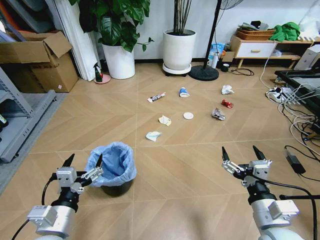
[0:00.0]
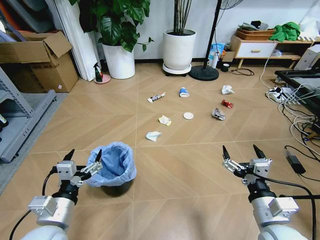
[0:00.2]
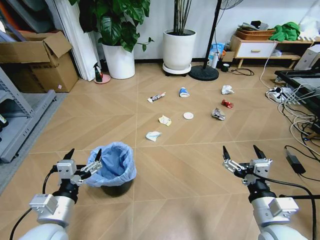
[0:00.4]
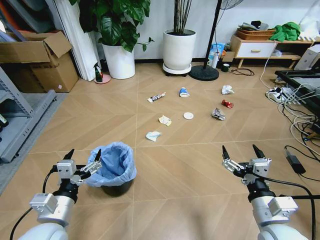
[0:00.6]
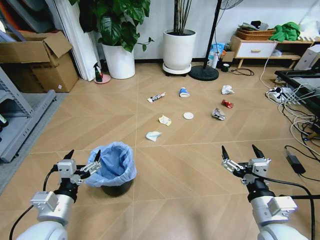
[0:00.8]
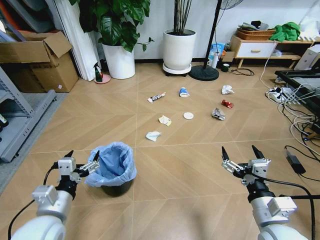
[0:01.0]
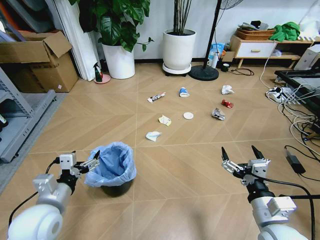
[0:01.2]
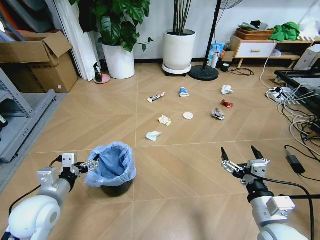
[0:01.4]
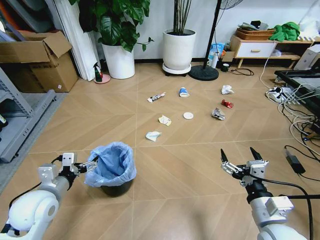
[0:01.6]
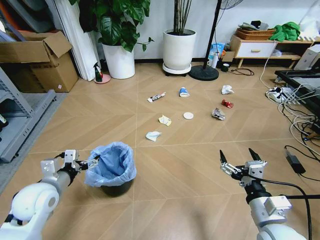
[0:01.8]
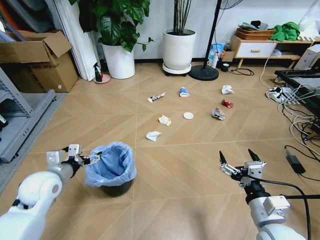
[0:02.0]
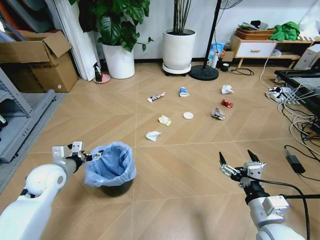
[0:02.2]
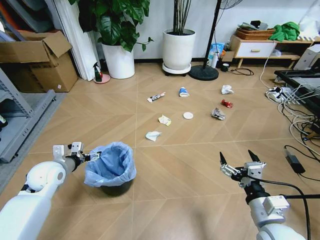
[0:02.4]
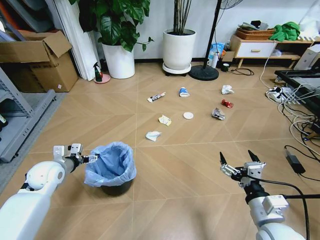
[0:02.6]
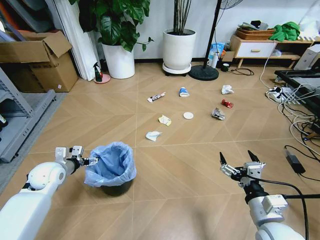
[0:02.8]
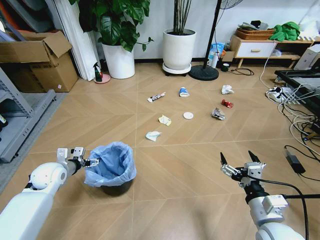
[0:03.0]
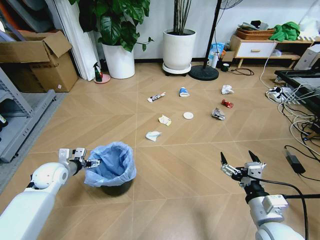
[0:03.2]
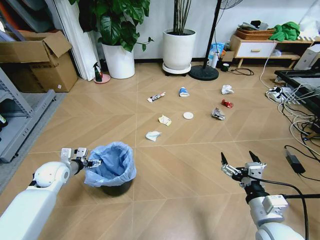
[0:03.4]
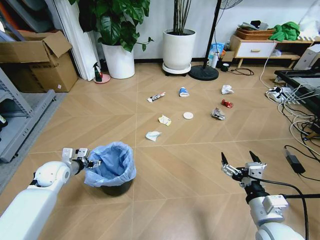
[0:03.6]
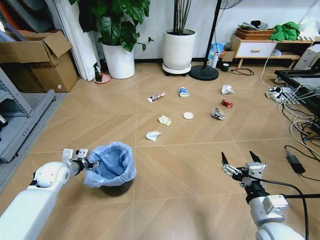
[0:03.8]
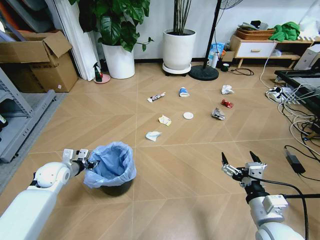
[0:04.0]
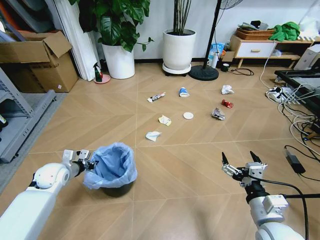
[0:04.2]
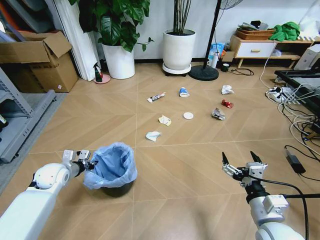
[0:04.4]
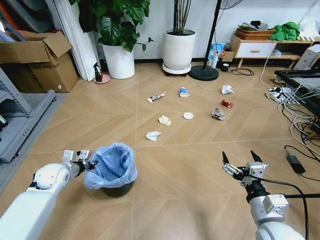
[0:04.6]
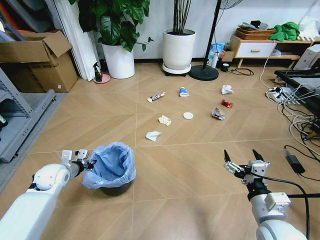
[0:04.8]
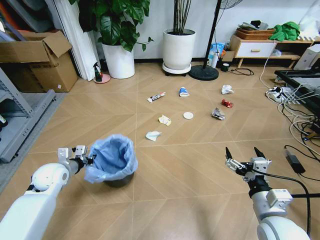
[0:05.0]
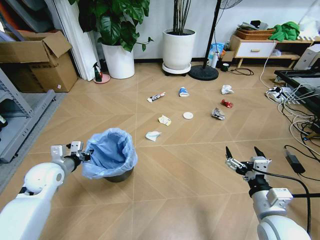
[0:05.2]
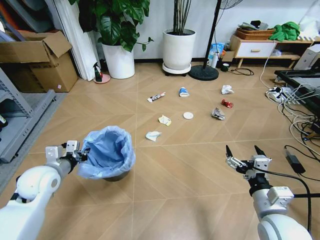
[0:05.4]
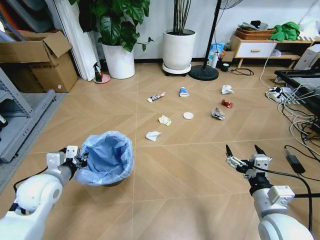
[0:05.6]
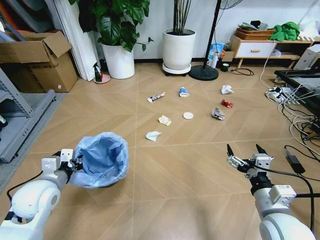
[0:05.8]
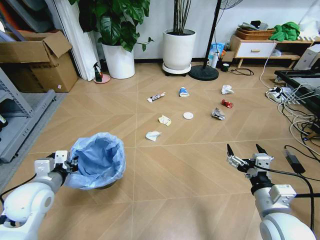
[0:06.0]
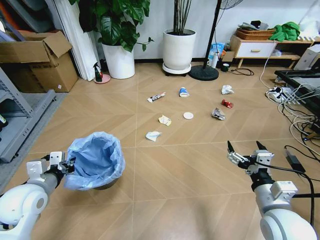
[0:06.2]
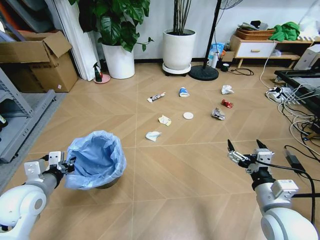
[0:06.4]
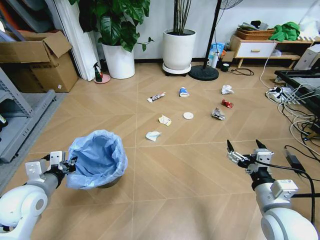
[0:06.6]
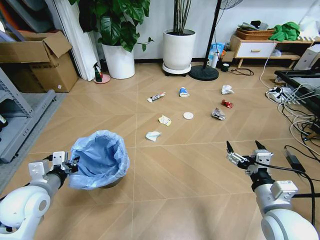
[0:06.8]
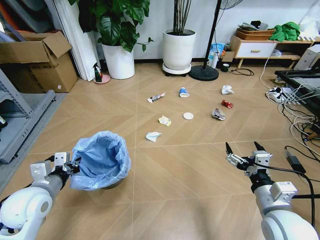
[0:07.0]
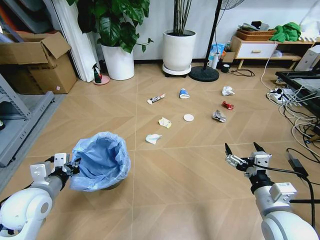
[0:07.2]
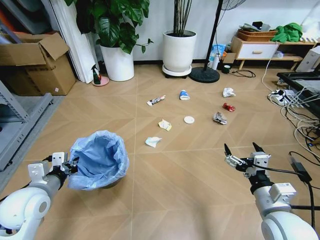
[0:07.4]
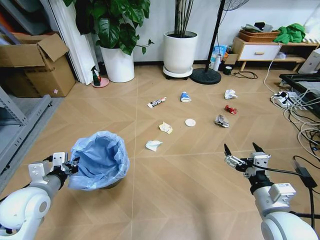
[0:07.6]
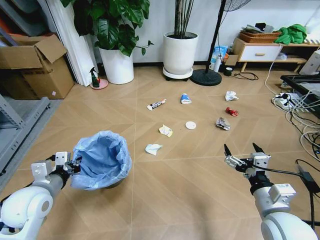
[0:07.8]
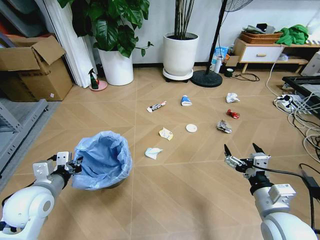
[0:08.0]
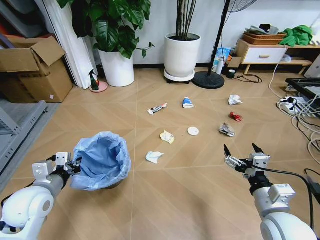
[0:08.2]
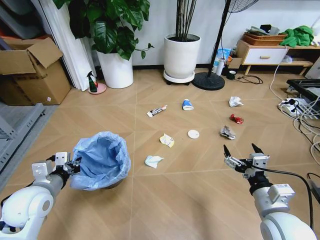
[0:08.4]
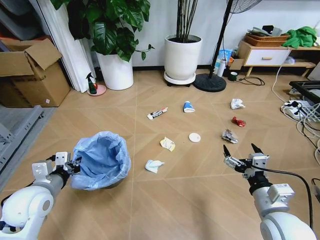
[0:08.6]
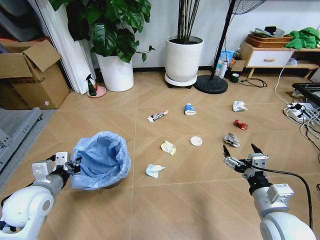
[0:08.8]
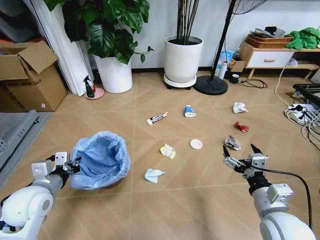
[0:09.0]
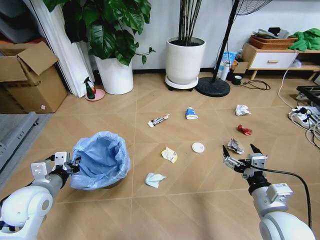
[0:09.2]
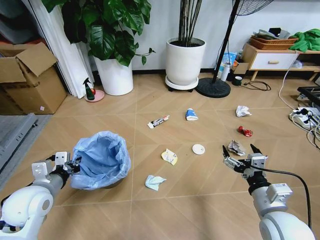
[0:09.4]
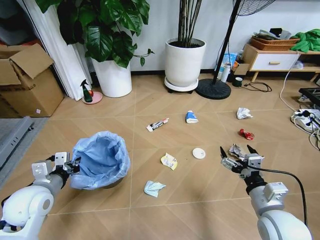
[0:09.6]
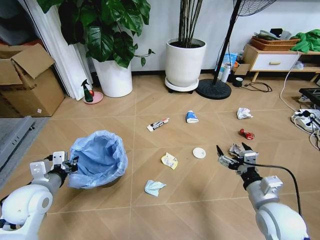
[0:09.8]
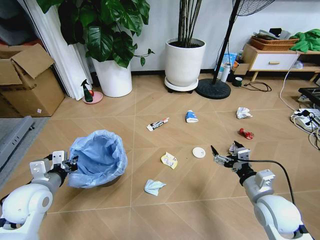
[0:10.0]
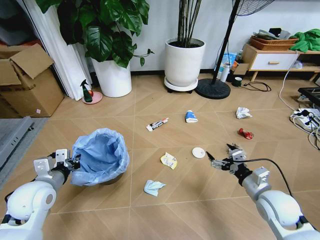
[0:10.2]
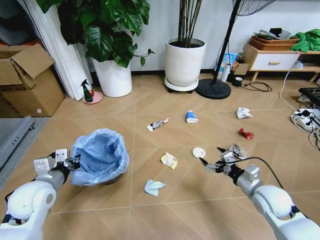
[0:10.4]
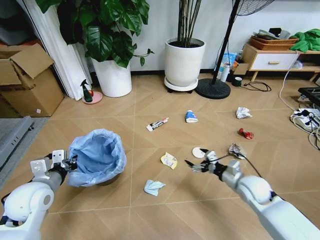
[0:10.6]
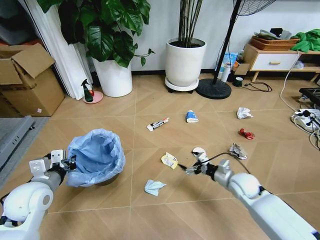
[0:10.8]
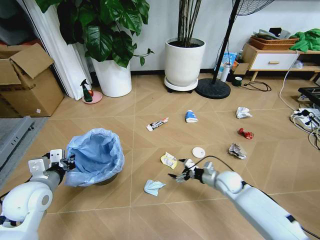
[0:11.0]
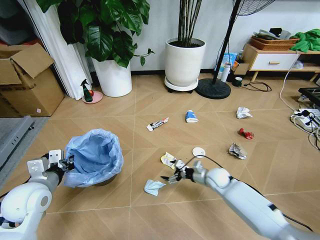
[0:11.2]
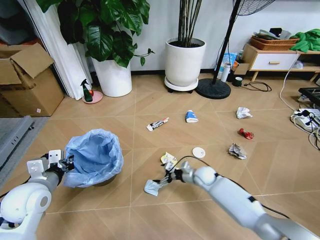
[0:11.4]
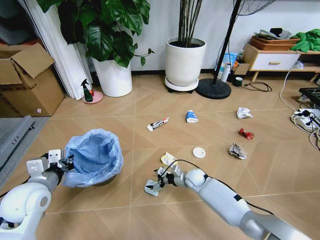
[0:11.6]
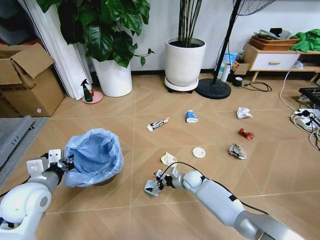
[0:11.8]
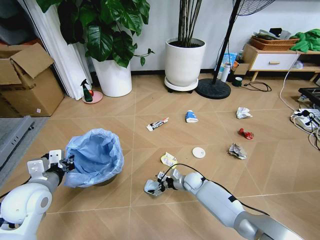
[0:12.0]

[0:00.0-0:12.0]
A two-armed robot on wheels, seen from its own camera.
Task of the whole recording: Pick up the trash bin and place the garbage on the floor into it.
0:01.6 to 0:03.0: The left gripper goes about 15 cm forward, downward and to the left.
0:03.0 to 0:04.4: The left gripper closes its fingers.
0:04.4 to 0:06.0: The left gripper travels backward and upward by some 15 cm.
0:09.0 to 0:10.4: The right gripper shifts roughly 15 cm forward, downward and to the right.
0:10.4 to 0:12.0: The right gripper shifts approximately 30 cm downward, to the left and forward.

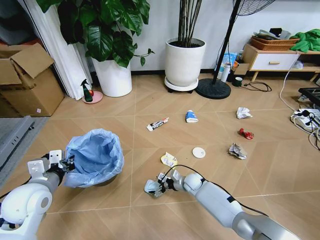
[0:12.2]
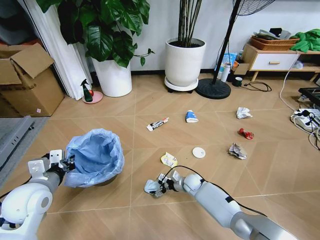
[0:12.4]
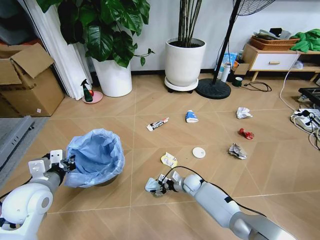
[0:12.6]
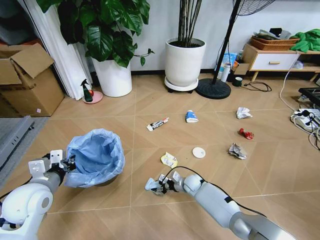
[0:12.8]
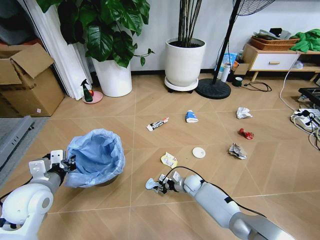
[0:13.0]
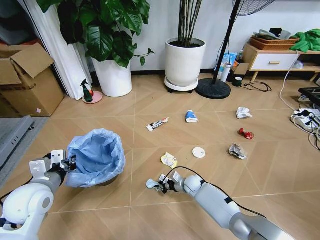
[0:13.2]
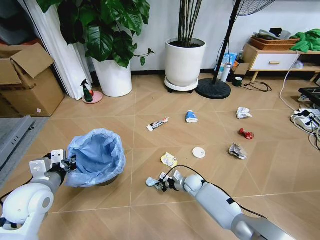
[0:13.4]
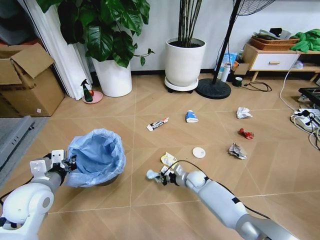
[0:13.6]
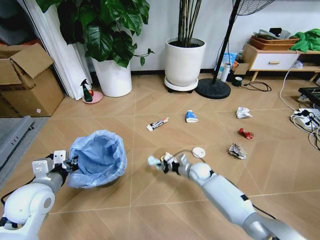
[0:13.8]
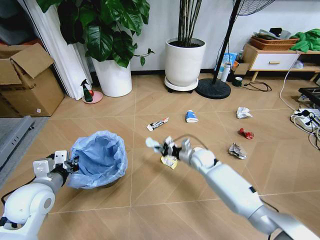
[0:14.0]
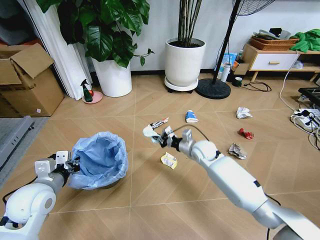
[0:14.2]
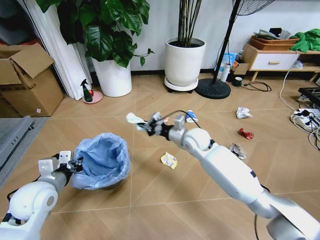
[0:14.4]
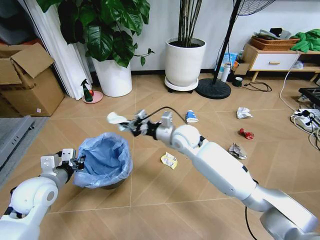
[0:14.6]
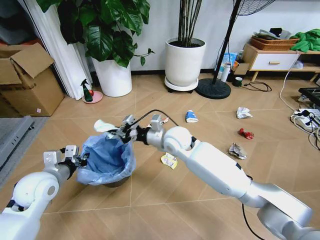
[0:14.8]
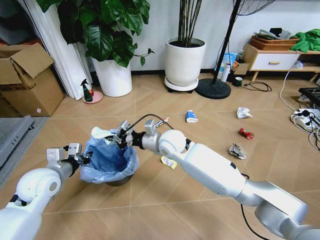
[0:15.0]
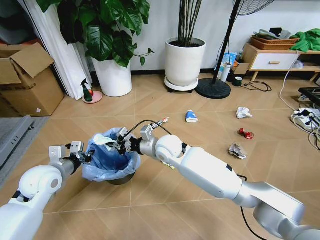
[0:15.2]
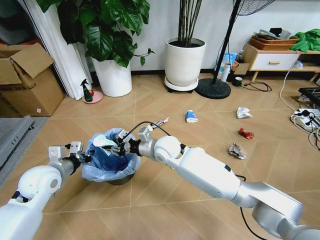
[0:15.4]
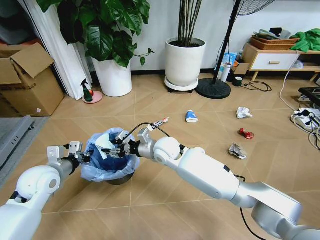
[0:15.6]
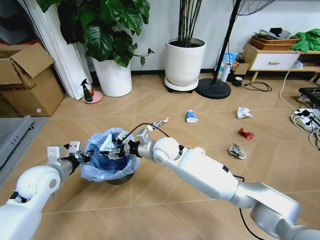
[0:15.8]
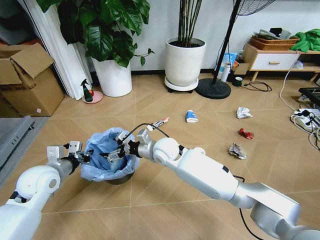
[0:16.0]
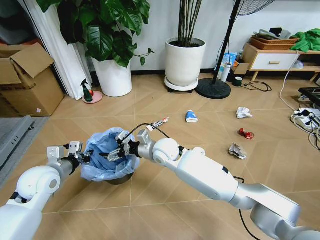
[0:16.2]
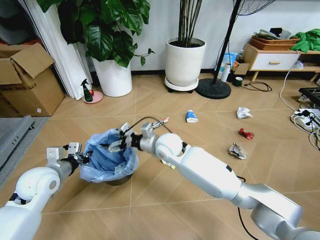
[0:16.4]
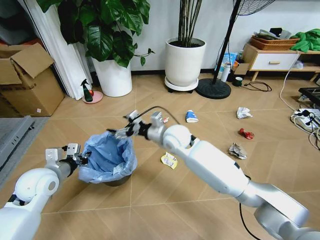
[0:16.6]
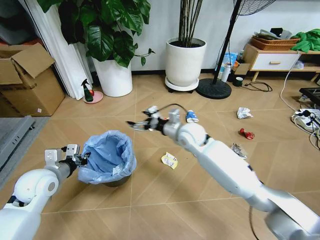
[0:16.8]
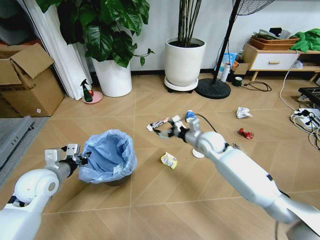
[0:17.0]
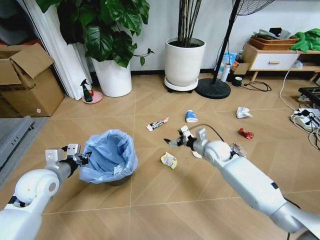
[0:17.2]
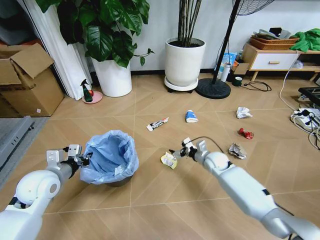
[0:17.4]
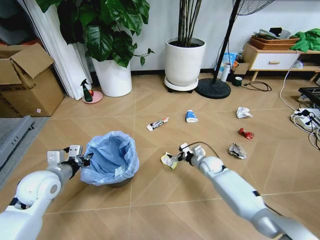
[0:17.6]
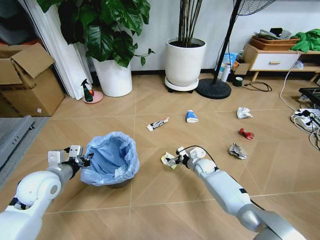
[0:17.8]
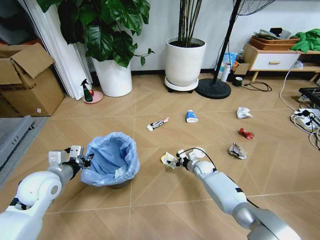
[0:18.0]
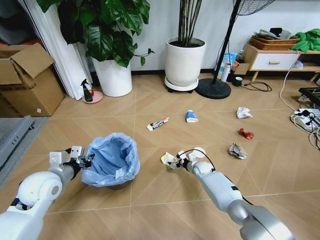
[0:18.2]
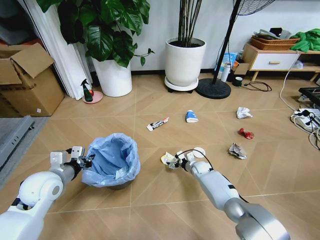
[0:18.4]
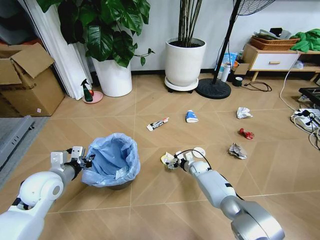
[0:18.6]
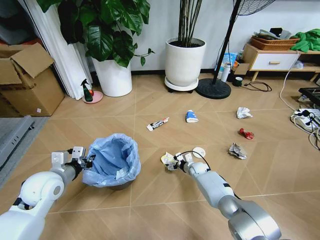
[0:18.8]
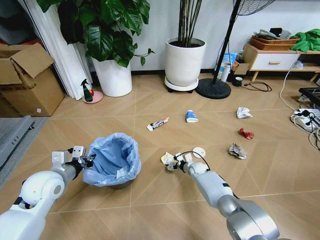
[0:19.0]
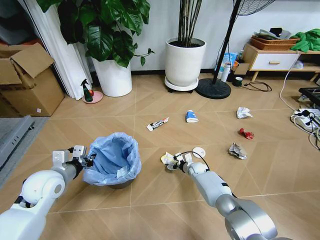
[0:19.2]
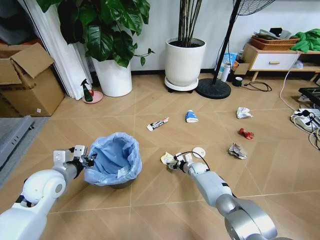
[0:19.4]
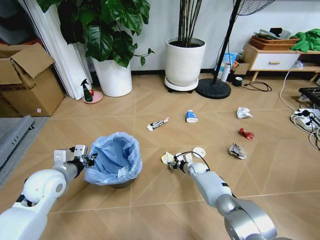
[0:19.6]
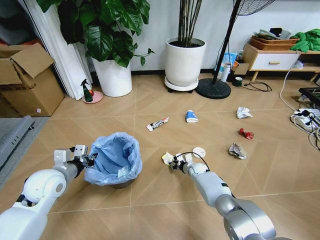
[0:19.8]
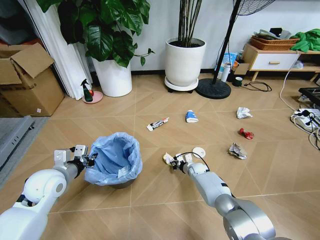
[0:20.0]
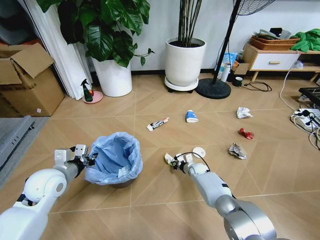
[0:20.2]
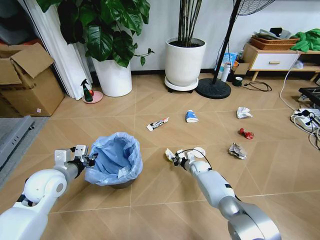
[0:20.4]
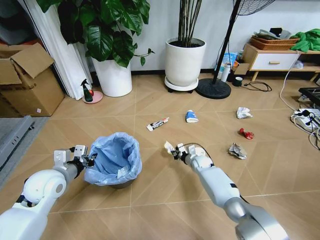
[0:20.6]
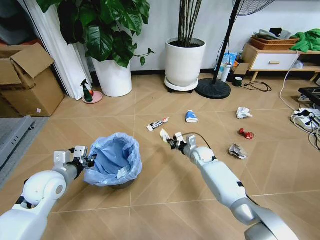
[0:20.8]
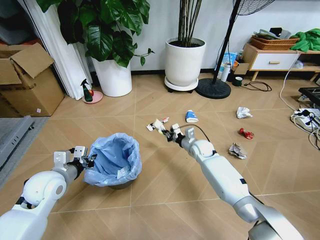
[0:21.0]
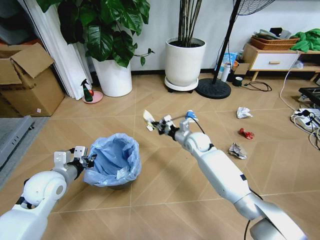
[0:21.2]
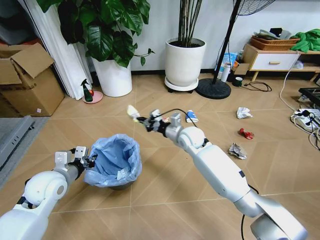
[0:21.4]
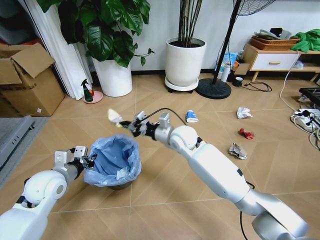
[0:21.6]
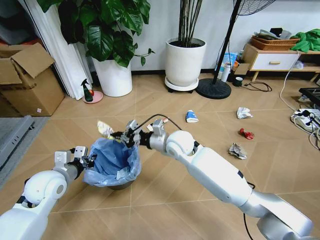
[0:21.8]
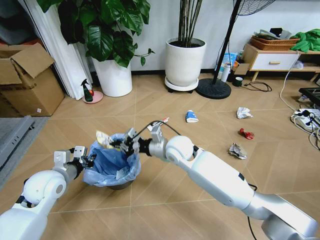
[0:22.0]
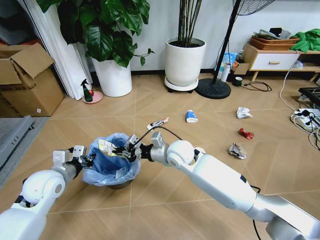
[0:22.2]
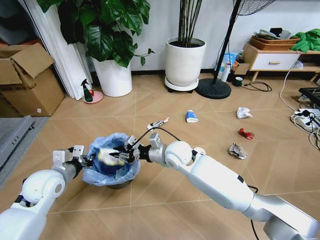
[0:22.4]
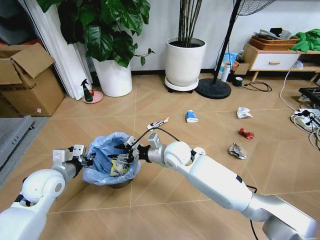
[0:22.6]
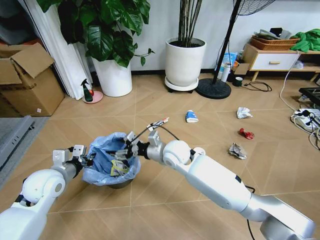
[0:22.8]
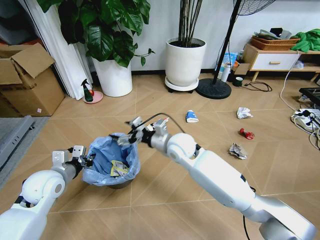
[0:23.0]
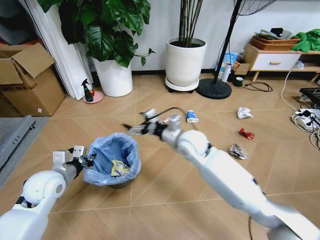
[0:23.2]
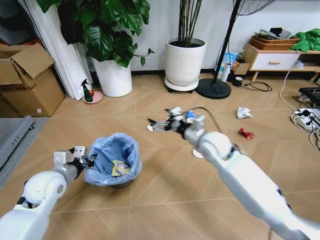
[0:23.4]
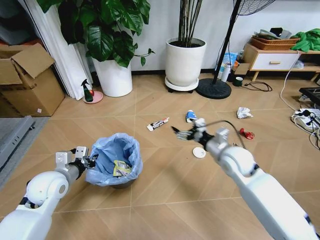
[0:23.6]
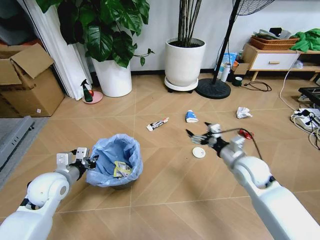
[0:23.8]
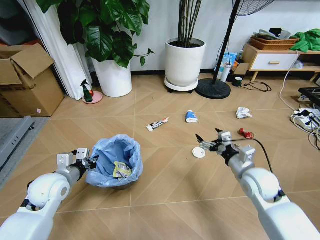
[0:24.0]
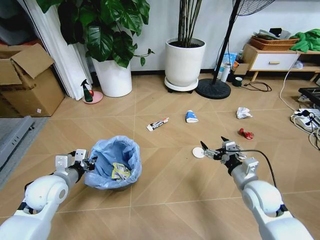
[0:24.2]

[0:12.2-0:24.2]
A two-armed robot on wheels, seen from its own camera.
Task of the whole recording: Pick up the trash bin and place the garbage on the floor into it.
0:12.2 to 0:13.8: The right gripper travels upward by some 5 cm, and closes up.
0:13.8 to 0:15.2: The left gripper heads forward, covering roughly 5 cm, while the right gripper shifts approximately 25 cm upward and to the left.
0:15.2 to 0:16.6: The right gripper opens.
0:16.6 to 0:18.2: The right gripper moves downward and to the right, approximately 35 cm.
0:18.2 to 0:19.8: The right gripper closes its fingers.
0:19.8 to 0:21.2: The right gripper is displaced upward by approximately 25 cm.
0:21.2 to 0:22.6: The right gripper moves to the left and backward, roughly 15 cm, and opens its fingers.
0:22.6 to 0:24.2: The right gripper heads to the right and backward, covering approximately 30 cm, and opens up.
